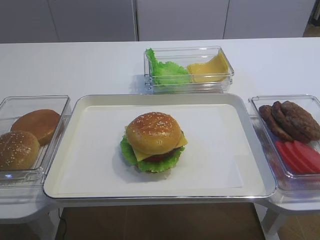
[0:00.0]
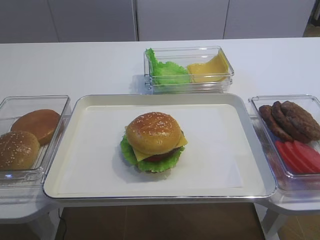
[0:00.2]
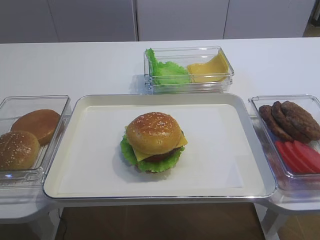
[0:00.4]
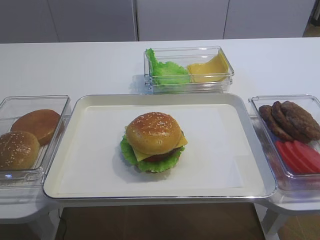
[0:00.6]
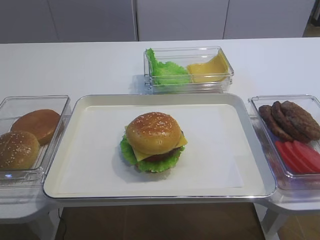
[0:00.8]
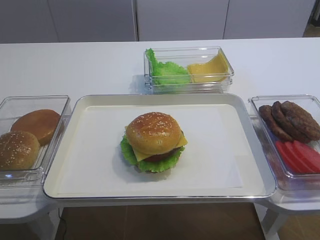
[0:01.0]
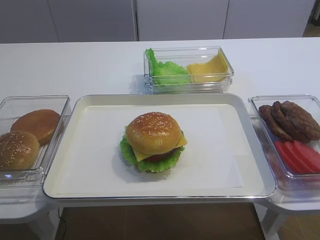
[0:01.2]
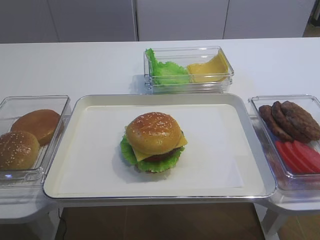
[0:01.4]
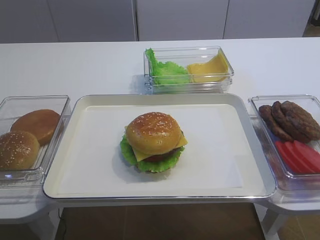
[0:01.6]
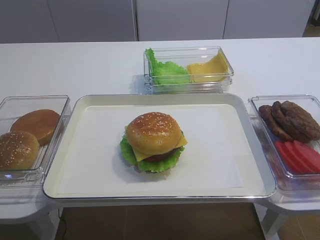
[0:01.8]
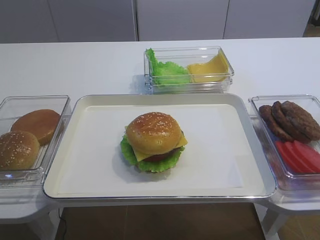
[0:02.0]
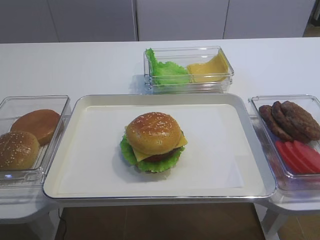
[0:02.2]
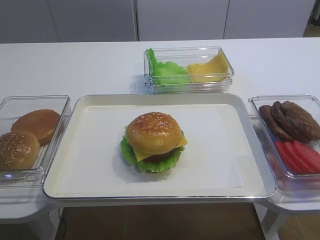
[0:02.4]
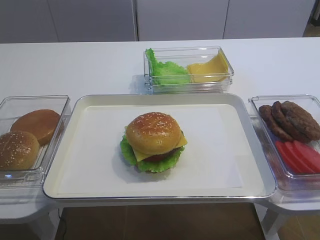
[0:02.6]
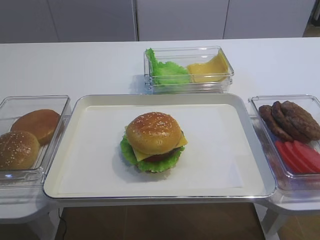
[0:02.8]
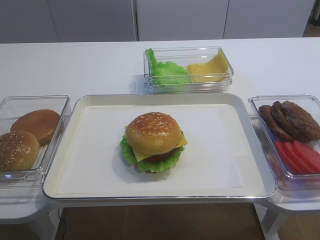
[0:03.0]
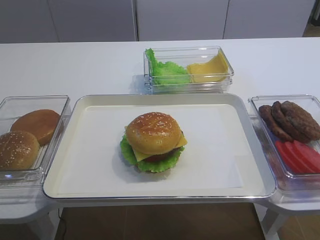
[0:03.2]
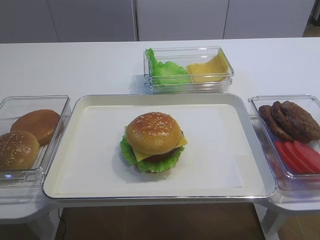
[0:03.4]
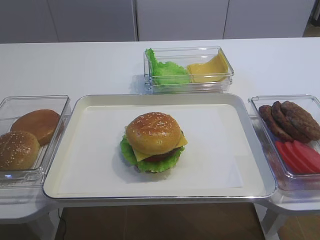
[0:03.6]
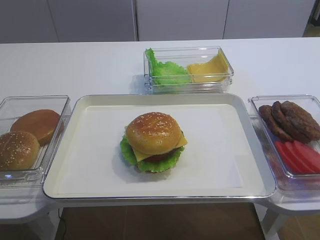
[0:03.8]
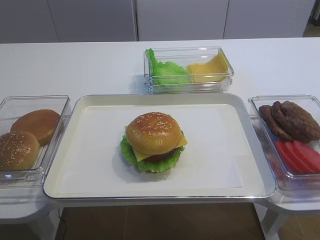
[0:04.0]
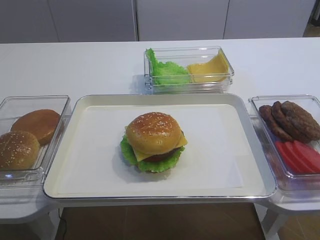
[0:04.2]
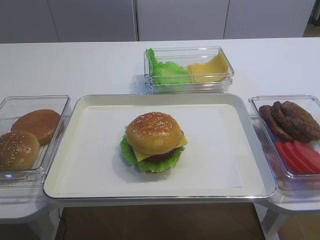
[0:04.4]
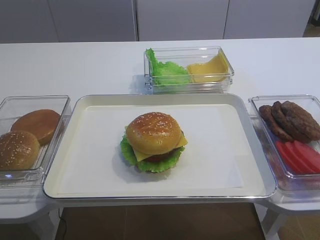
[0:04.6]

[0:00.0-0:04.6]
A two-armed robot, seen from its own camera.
0:01.6 to 0:04.6: Both grippers stay put.

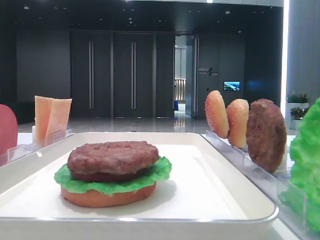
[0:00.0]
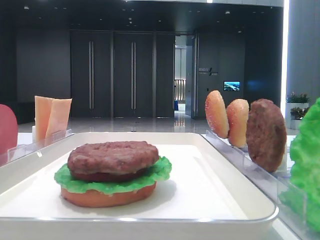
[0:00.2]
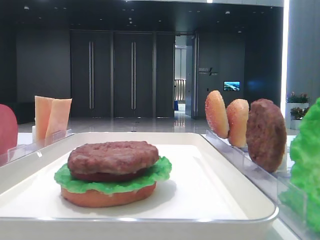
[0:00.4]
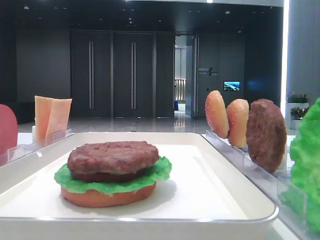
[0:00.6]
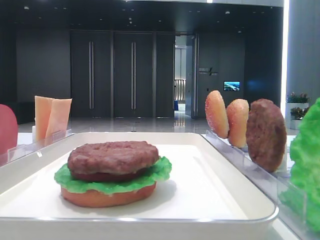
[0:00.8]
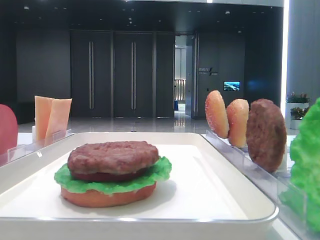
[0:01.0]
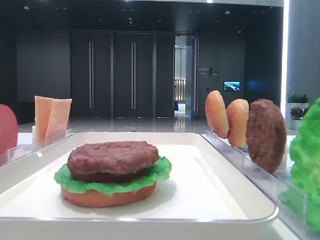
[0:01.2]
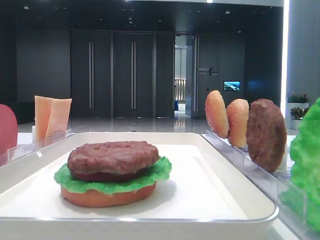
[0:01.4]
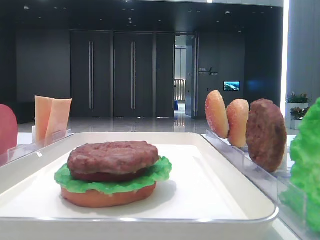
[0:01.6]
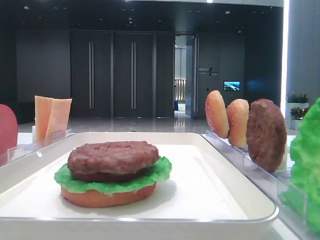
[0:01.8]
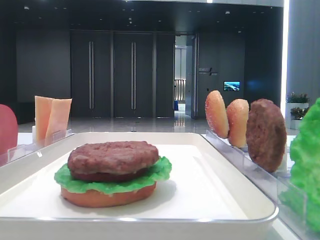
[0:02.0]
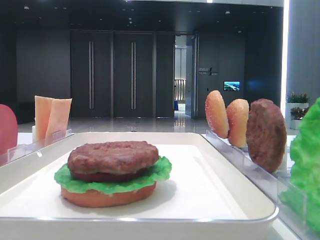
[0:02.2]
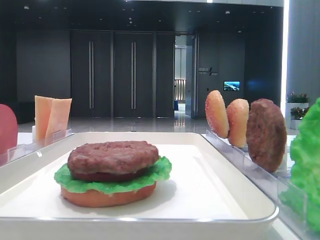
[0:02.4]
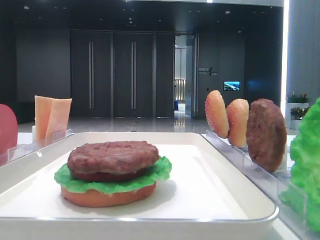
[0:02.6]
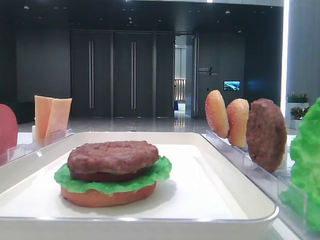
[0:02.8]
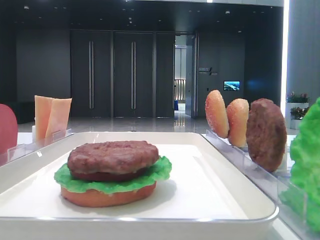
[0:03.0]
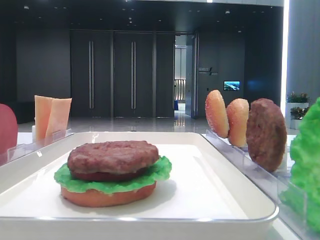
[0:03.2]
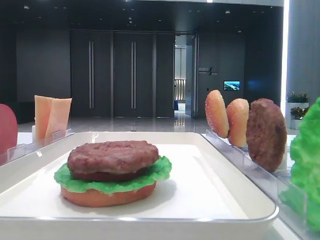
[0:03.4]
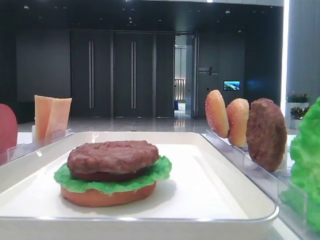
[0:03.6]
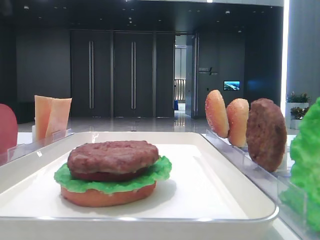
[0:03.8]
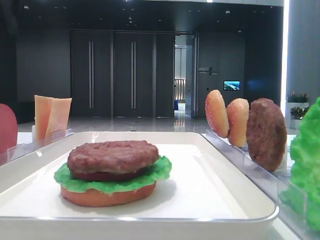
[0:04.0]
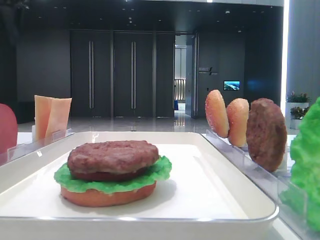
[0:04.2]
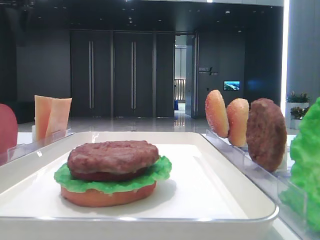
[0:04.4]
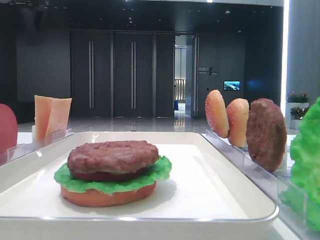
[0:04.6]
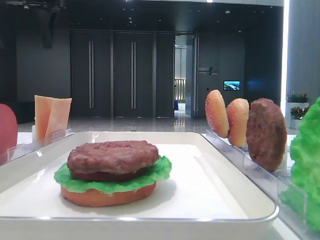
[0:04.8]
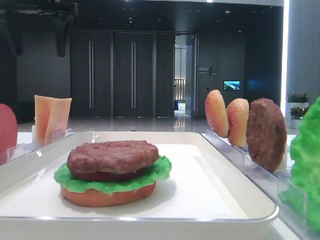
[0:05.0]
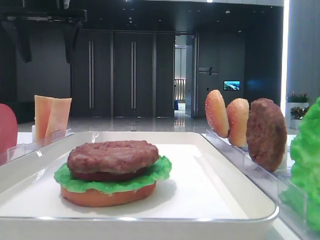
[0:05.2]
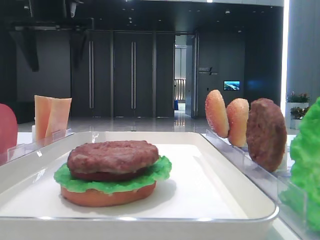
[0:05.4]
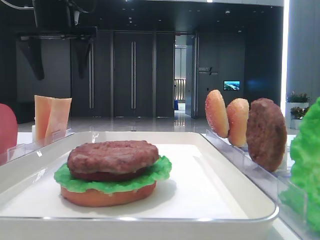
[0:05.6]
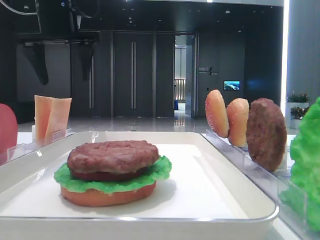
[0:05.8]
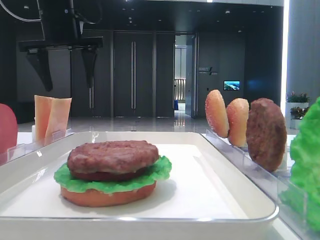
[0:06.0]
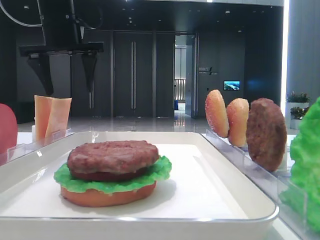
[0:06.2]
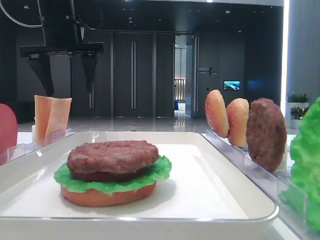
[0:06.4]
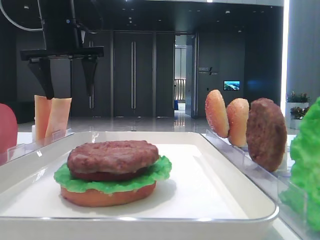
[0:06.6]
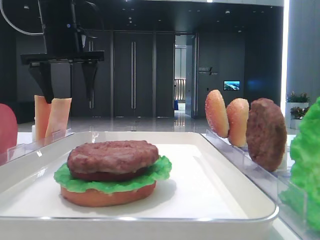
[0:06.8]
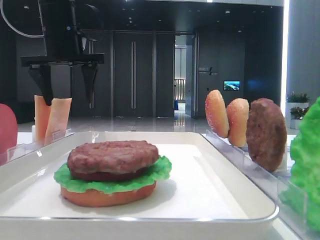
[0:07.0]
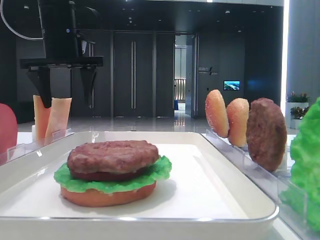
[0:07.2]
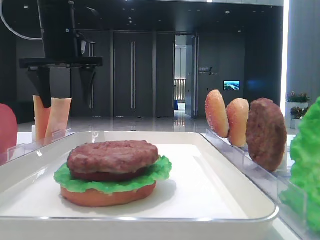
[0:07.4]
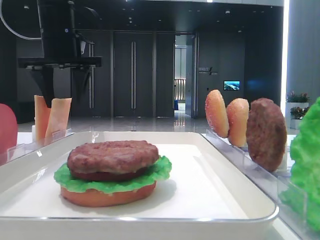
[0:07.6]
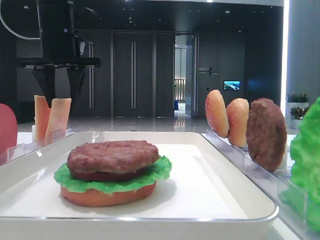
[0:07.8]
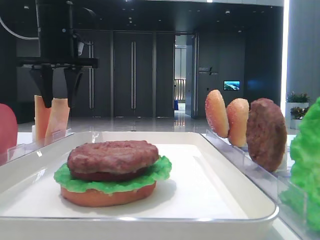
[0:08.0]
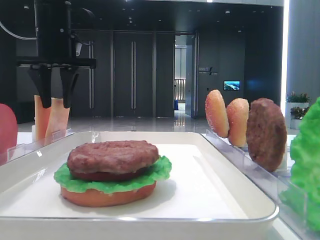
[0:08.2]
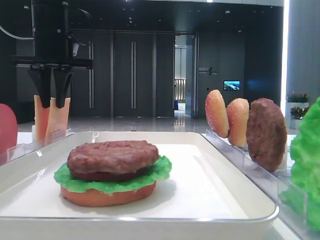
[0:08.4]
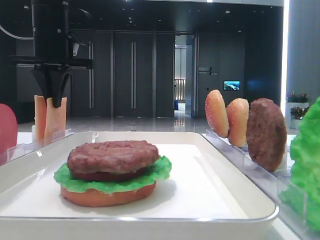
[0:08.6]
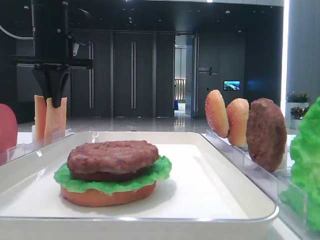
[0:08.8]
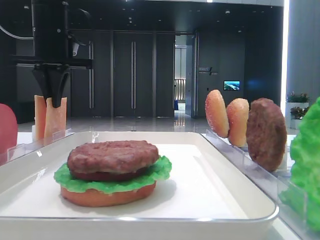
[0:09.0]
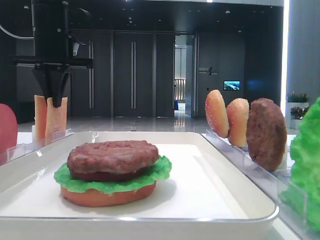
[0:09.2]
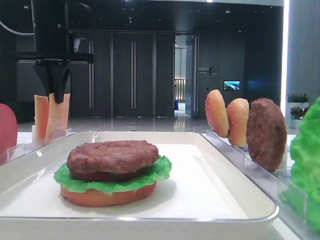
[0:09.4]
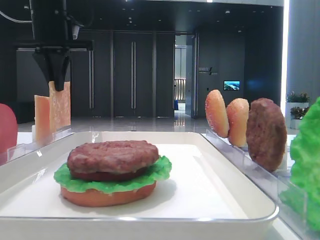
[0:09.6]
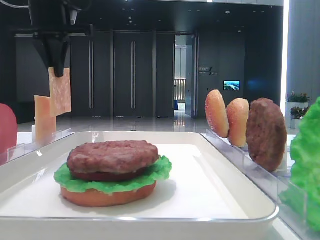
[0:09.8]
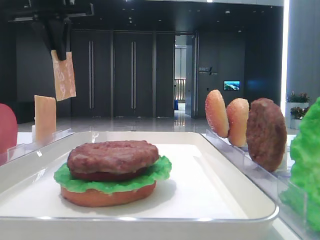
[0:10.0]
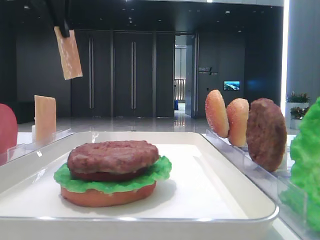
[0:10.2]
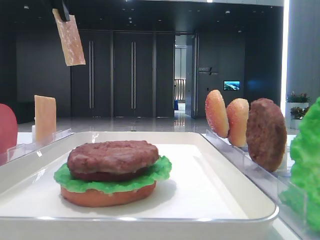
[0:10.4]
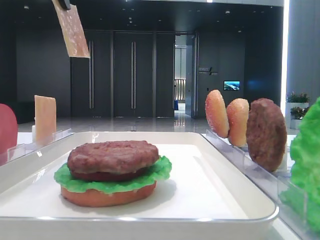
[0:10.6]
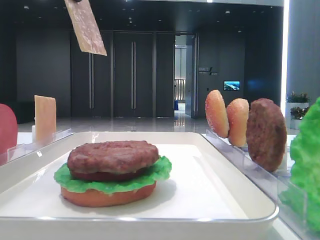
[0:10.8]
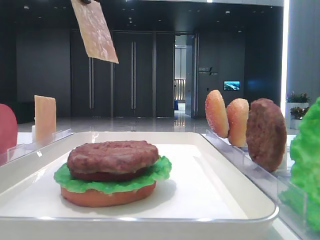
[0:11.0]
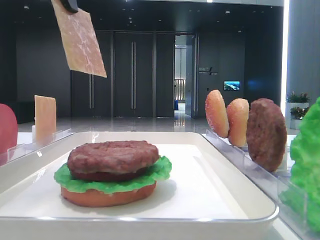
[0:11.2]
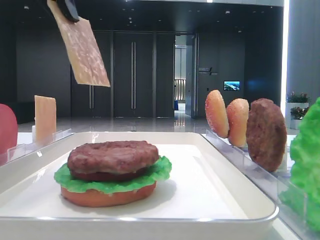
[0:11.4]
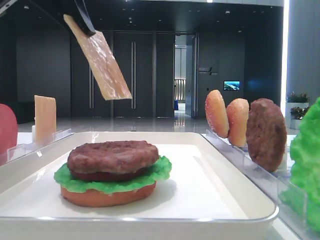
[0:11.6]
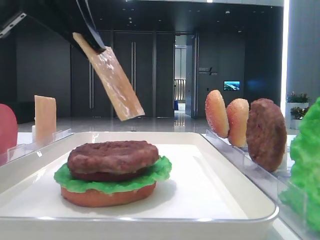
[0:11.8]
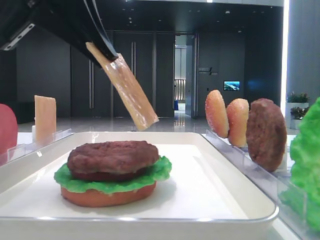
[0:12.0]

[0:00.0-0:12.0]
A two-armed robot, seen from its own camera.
Step, 0:00.0 to 0:09.4: Pick up the cheese slice with the left hand.
0:04.4 to 0:06.0: The left gripper travels to the right and downward by roughly 15 cm.
0:06.0 to 0:07.6: The grippers move only a little.
0:07.6 to 0:09.0: The left gripper closes its fingers.
0:09.0 to 0:10.4: The left gripper moves upward and backward, approximately 15 cm.
0:10.4 to 0:12.0: The left gripper heads backward, downward and to the right, covering some 20 cm.

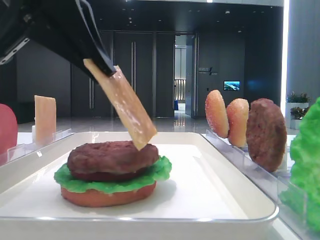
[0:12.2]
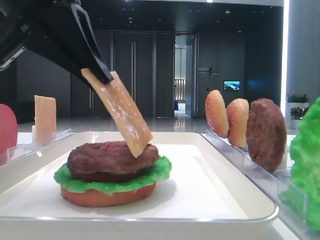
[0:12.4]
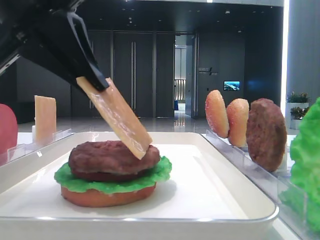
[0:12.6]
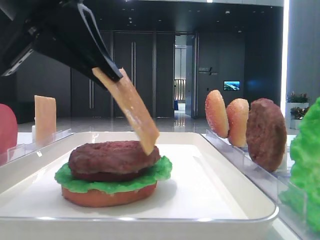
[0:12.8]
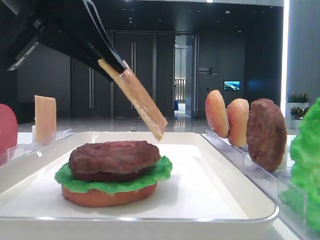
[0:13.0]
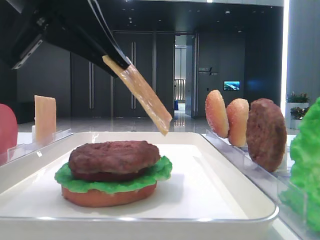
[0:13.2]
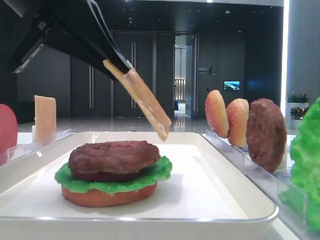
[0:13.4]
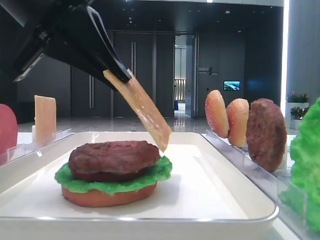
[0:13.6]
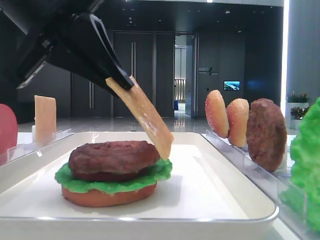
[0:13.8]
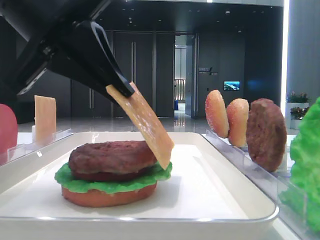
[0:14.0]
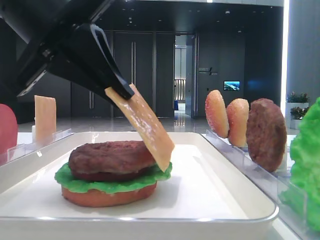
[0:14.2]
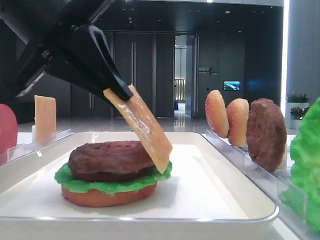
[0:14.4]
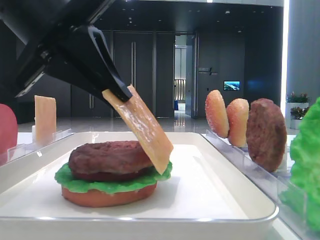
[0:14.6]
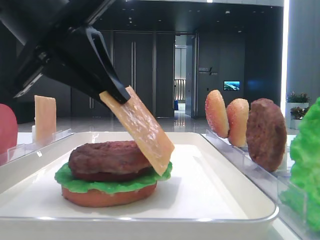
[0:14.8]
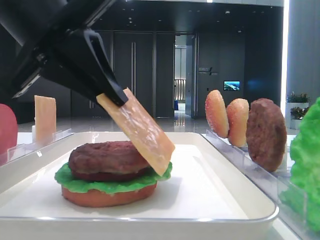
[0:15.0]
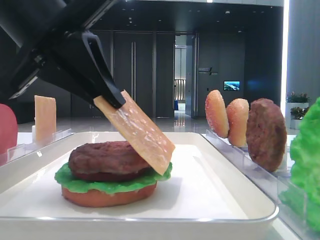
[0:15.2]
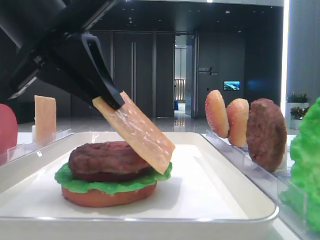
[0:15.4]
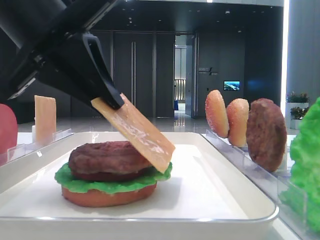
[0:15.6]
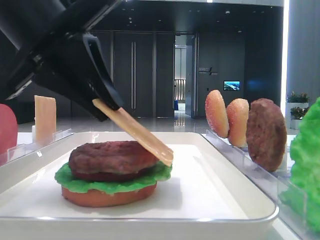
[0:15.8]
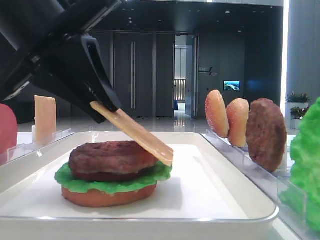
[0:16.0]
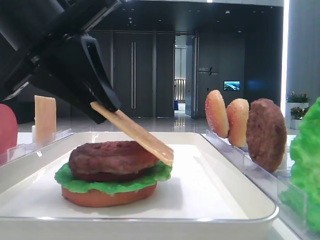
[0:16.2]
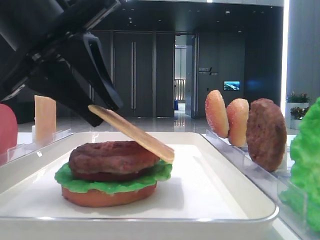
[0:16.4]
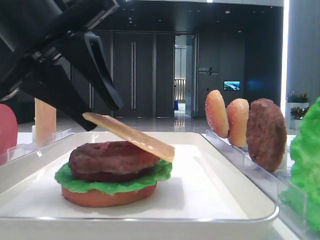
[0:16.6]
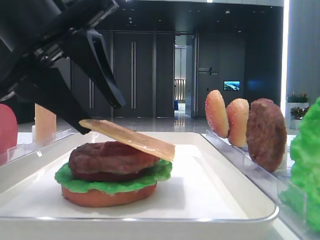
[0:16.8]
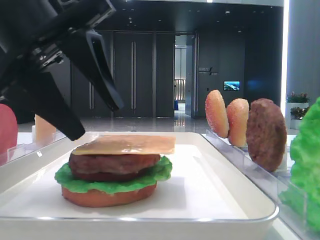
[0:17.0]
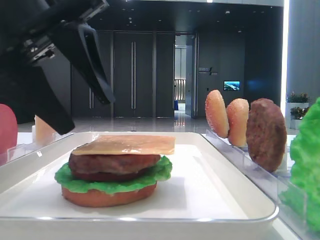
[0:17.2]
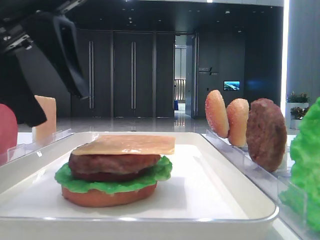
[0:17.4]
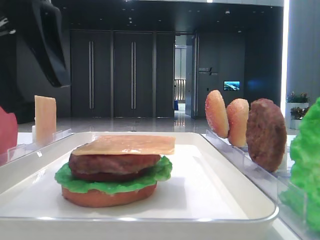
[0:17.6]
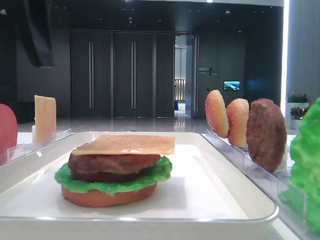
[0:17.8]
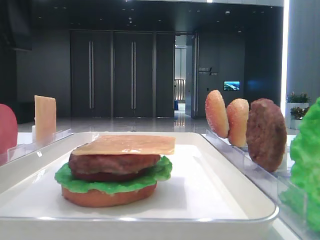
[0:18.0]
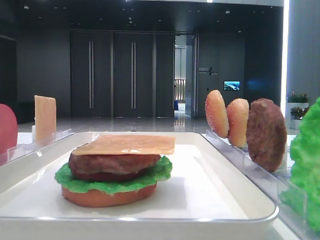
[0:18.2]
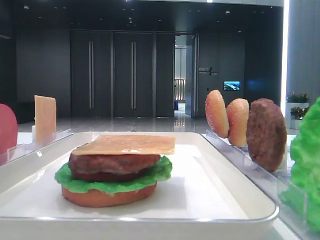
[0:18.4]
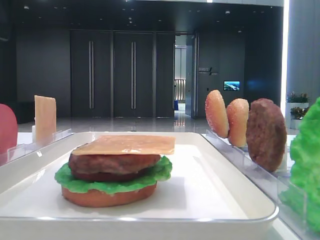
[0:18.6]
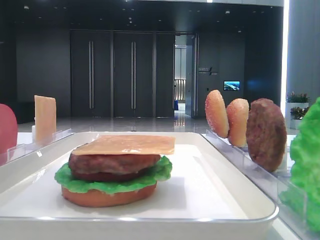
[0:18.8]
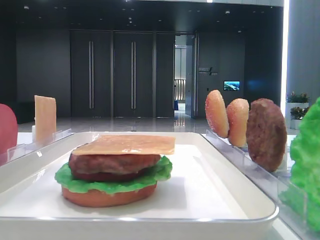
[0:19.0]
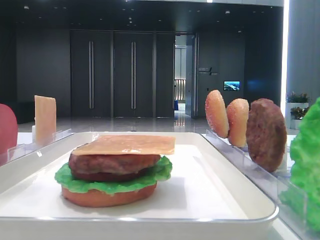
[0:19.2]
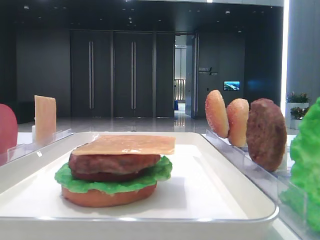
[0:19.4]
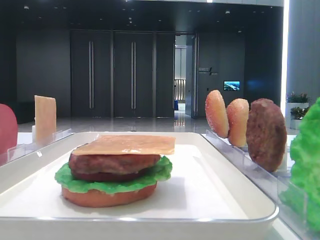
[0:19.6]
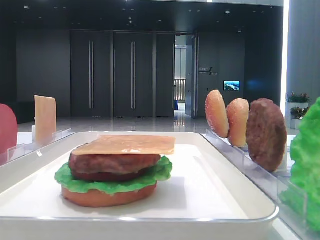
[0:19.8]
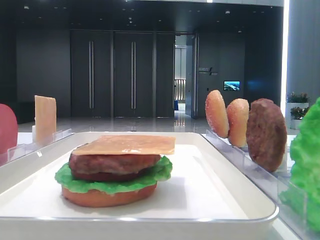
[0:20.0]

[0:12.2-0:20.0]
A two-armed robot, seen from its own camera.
Step, 0:12.2 to 0:16.8: Place the cheese slice on the patty with the left hand.
0:12.2 to 0:15.4: There are only small adjustments of the grippers.
0:15.4 to 0:16.8: The left gripper opens its fingers.
0:16.8 to 0:18.4: The left gripper is displaced upward and to the left by some 10 cm.
0:18.4 to 0:20.0: The left gripper goes roughly 15 cm to the left.